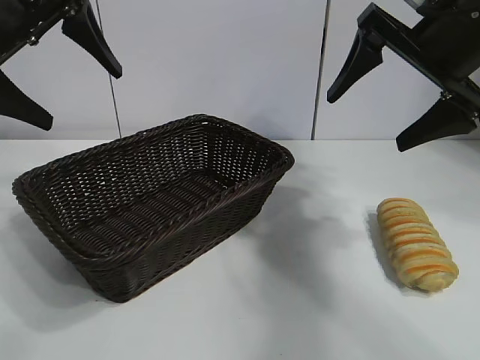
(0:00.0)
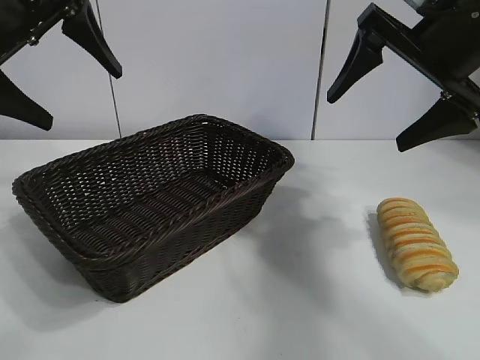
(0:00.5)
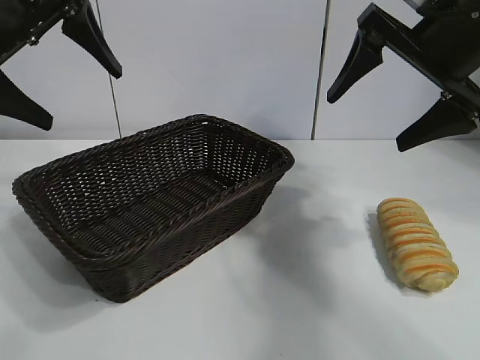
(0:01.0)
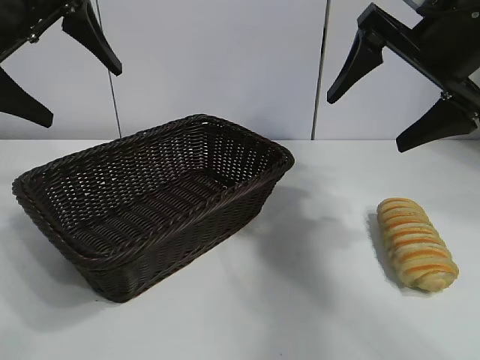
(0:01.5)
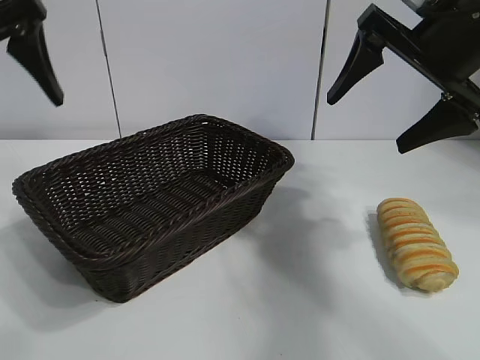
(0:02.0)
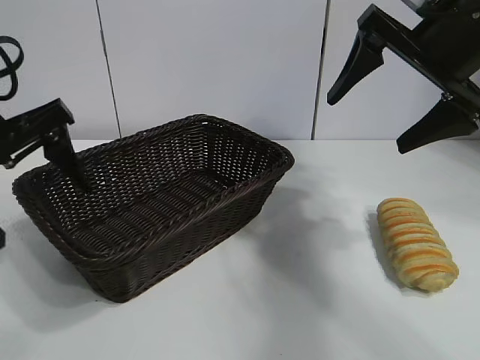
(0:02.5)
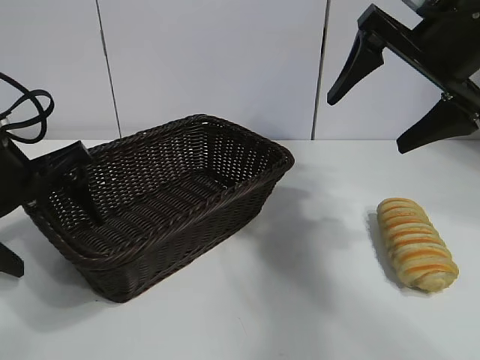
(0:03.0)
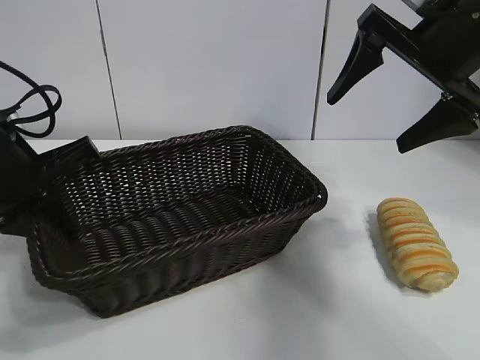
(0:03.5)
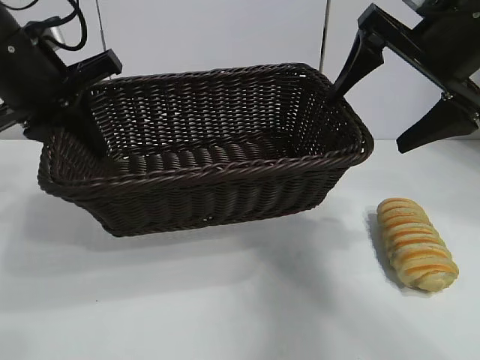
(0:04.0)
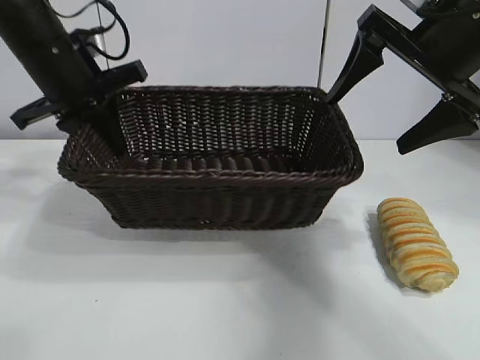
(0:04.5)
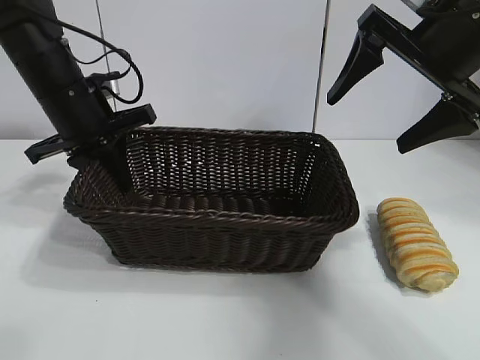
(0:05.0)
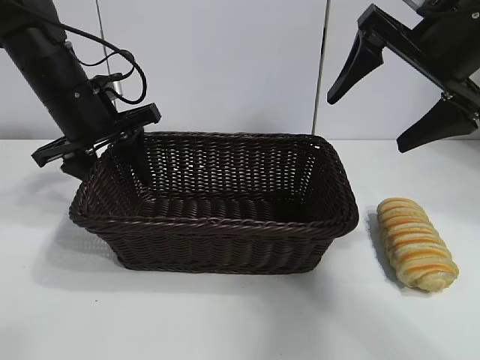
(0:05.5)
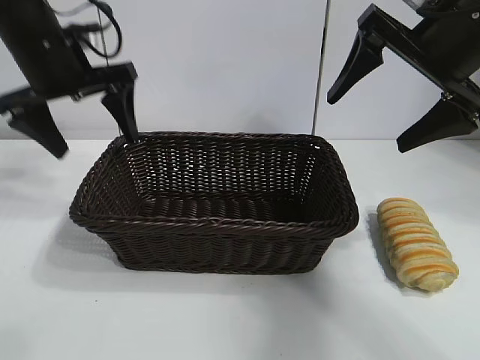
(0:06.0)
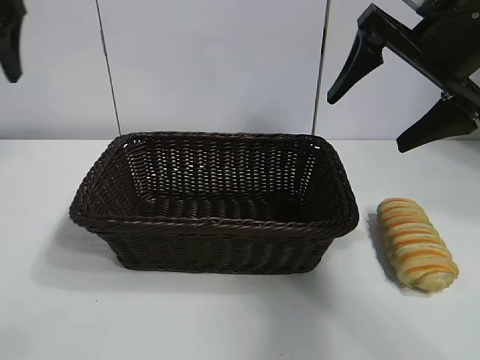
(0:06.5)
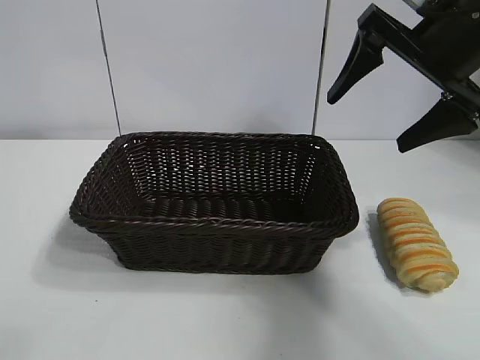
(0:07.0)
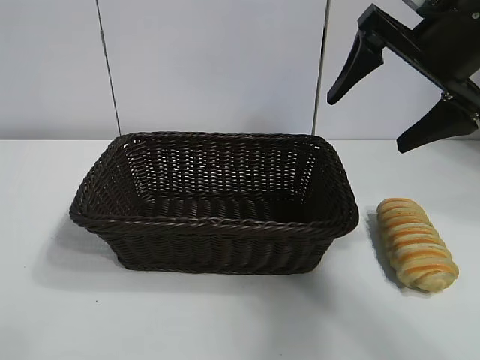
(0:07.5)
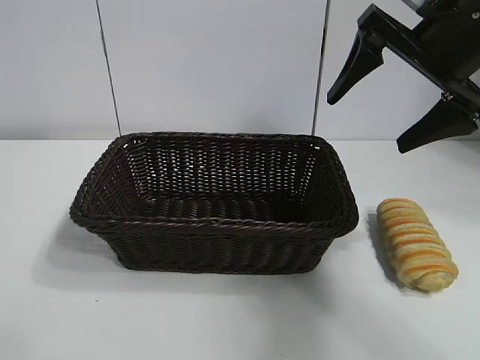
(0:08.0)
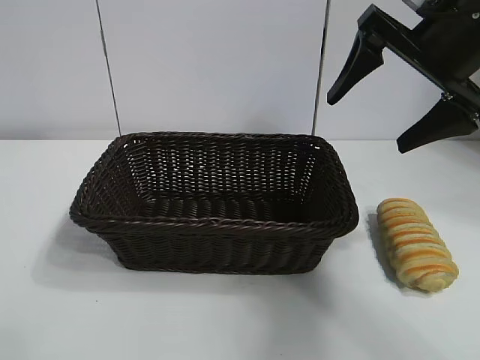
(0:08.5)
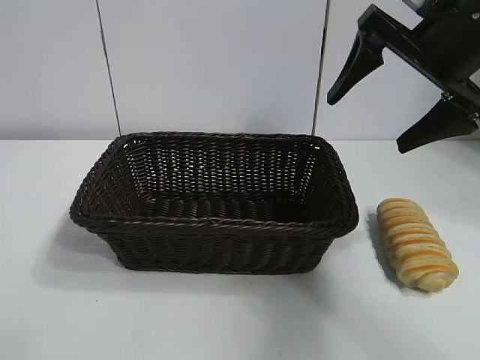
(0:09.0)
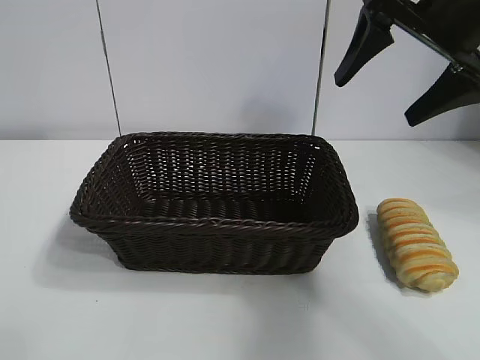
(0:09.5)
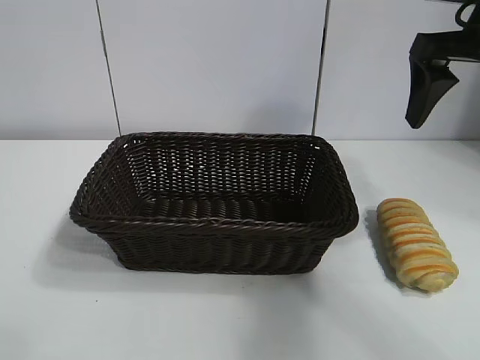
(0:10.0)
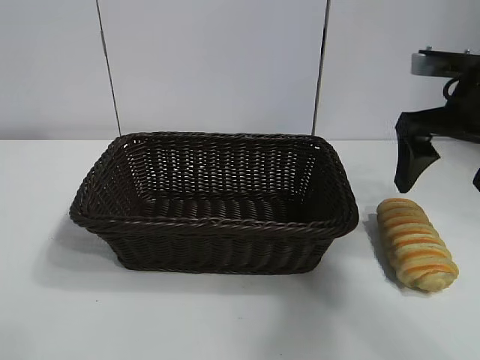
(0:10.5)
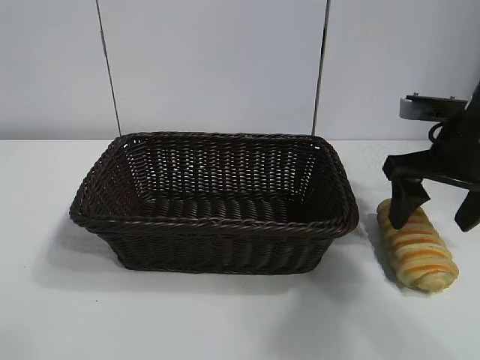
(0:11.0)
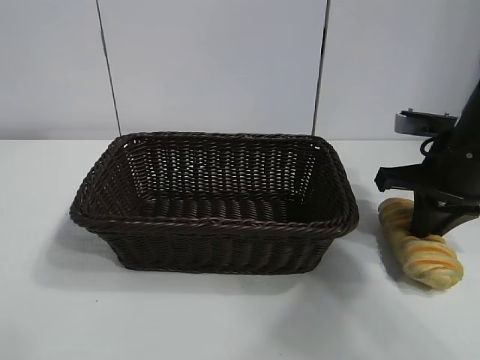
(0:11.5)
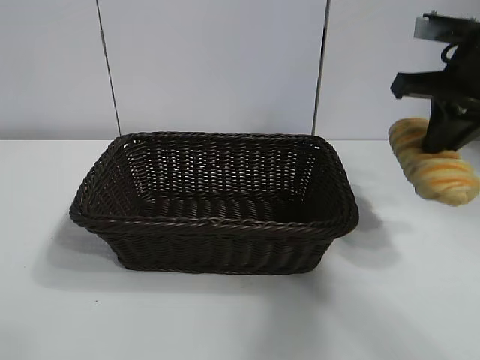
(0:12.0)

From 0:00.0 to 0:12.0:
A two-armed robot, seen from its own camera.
Task of the whole recording: pick up the long bread and put it into the basket.
Step, from 0:01.5 to 0:03.0: Grasp the basket with the left gripper.
Step, from 0:04.0 to 0:05.5: Place the basket in the center of the table with the left gripper.
Step, from 0:06.0 to 0:11.5: Grasp the long bread with right gripper.

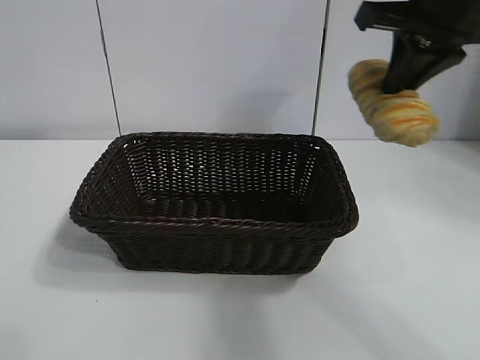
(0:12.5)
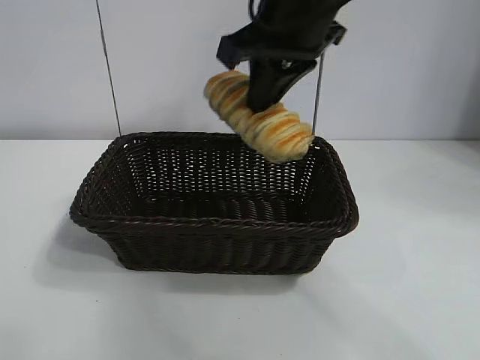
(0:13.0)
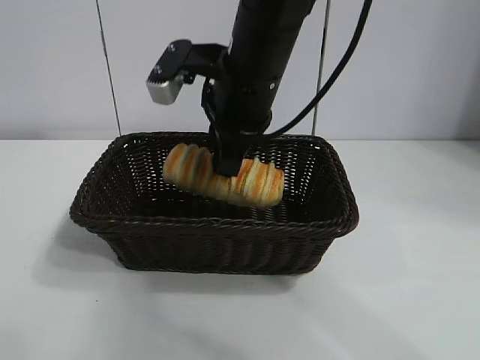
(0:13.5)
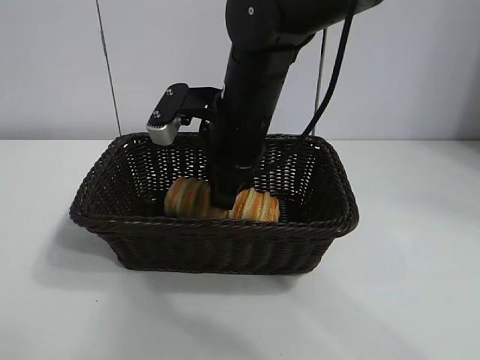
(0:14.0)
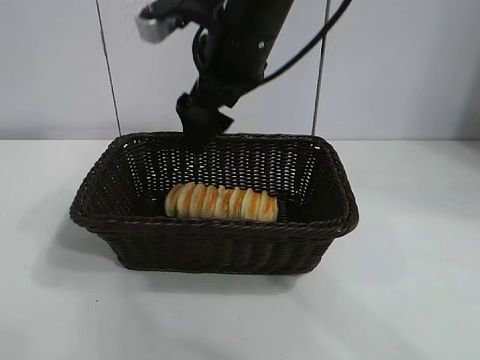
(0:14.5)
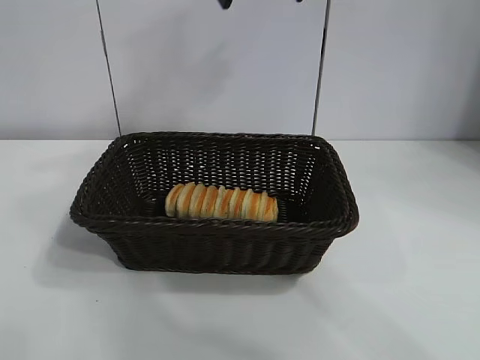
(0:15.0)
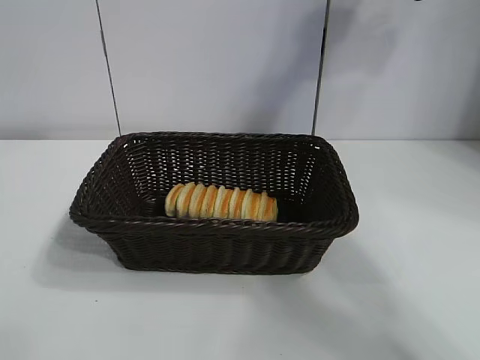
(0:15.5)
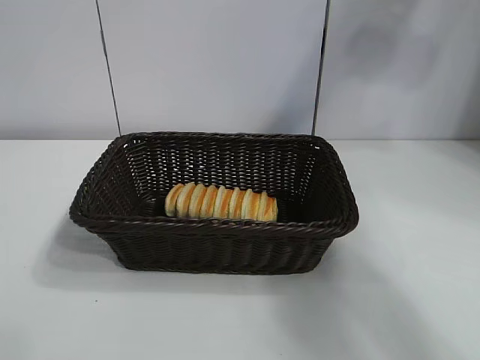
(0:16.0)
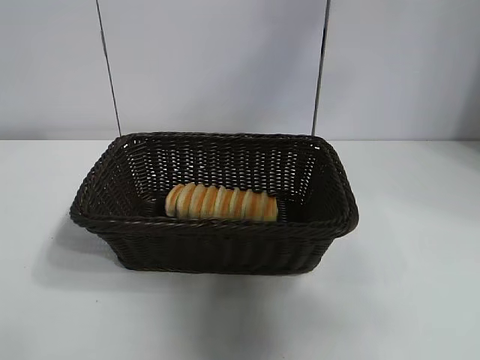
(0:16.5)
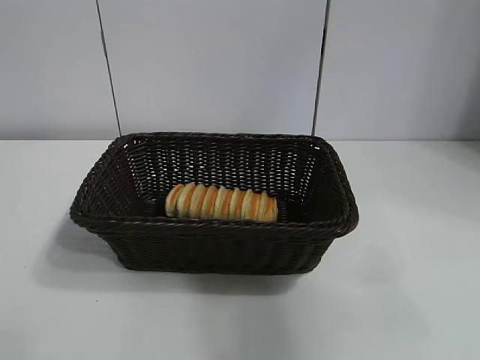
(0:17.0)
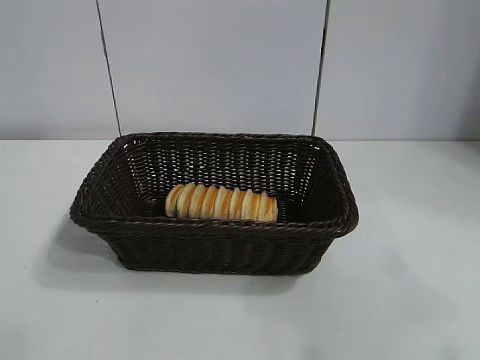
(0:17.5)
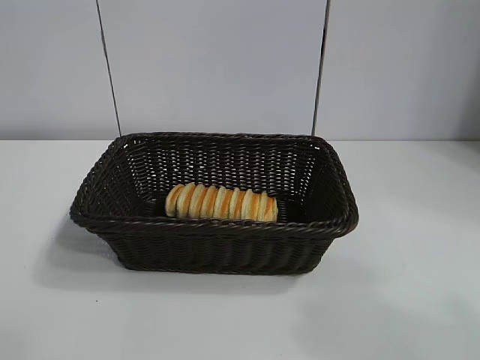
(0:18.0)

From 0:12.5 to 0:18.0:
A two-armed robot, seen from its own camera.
Task of the whole recording: pick up the long bread and put it into the basket.
Step, from 0:12.5 to 0:14.0: Place the long bread in the basket with right gripper.
